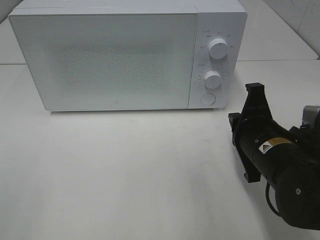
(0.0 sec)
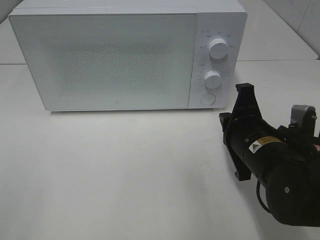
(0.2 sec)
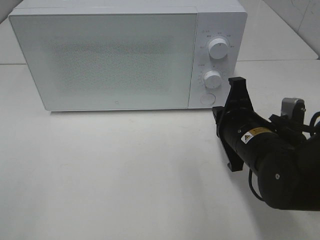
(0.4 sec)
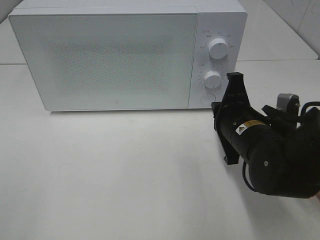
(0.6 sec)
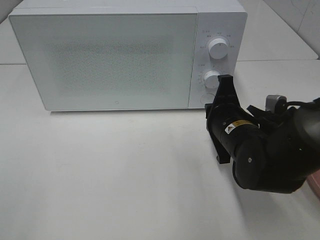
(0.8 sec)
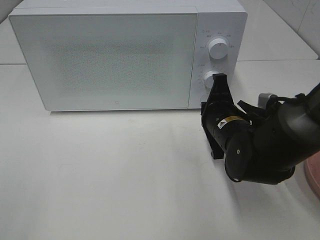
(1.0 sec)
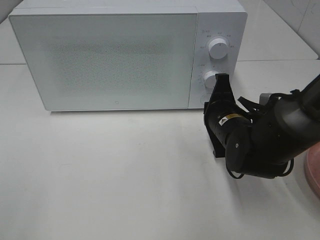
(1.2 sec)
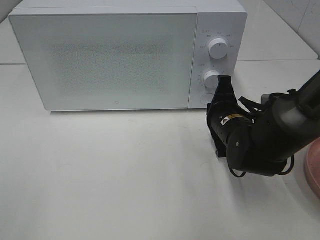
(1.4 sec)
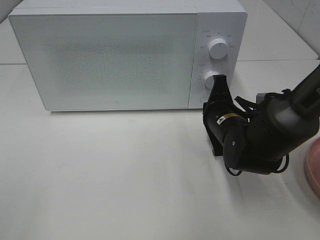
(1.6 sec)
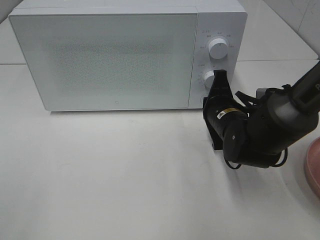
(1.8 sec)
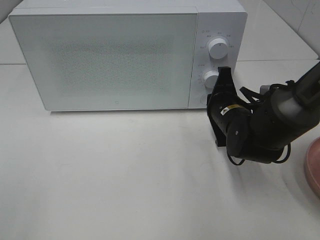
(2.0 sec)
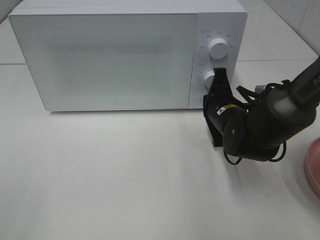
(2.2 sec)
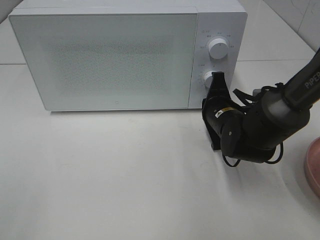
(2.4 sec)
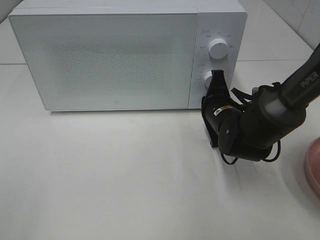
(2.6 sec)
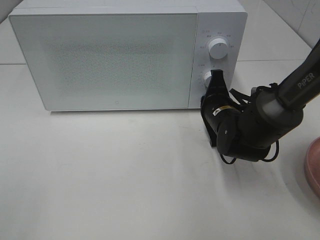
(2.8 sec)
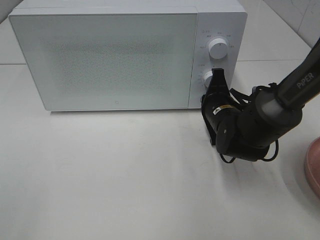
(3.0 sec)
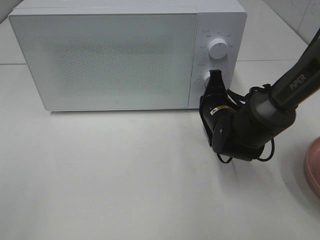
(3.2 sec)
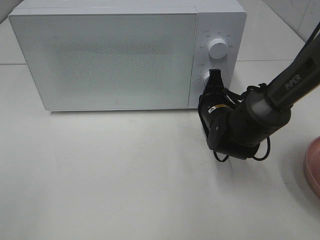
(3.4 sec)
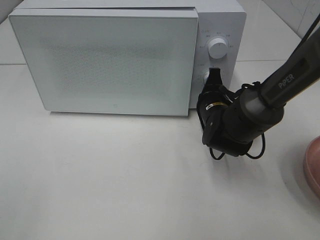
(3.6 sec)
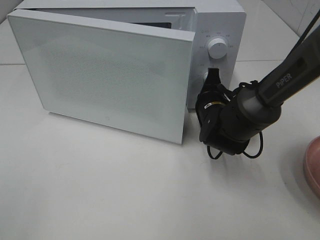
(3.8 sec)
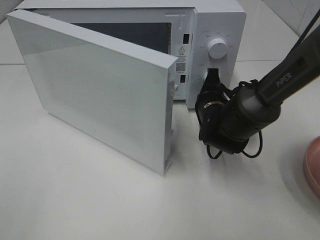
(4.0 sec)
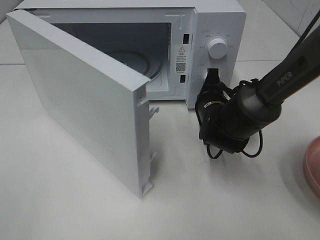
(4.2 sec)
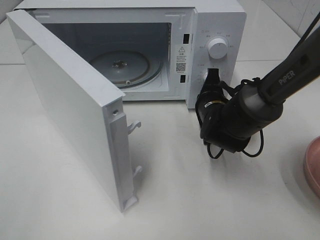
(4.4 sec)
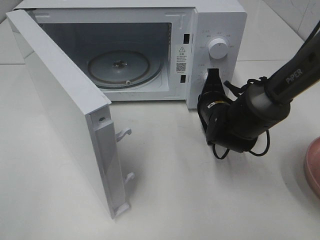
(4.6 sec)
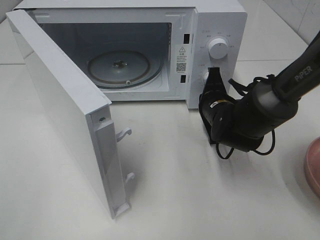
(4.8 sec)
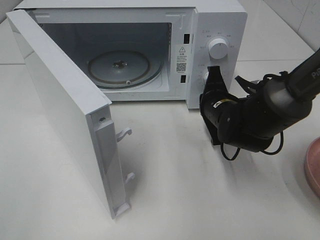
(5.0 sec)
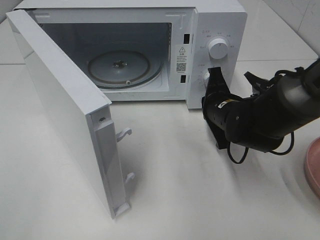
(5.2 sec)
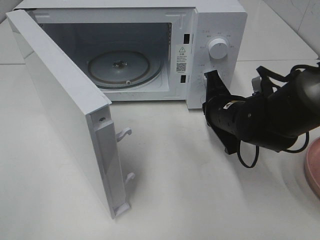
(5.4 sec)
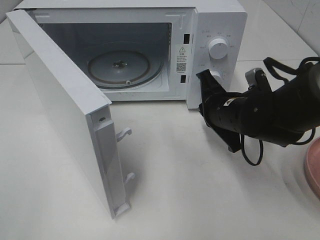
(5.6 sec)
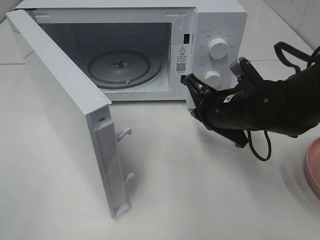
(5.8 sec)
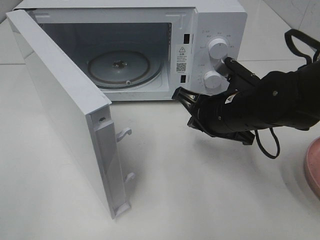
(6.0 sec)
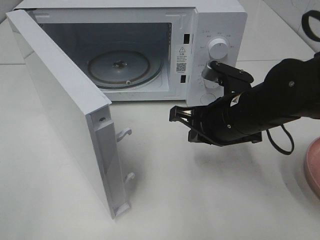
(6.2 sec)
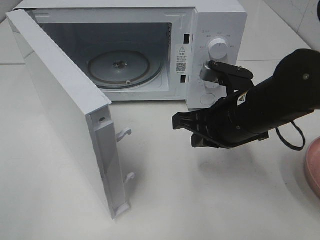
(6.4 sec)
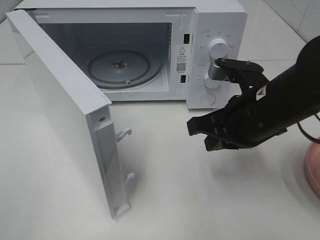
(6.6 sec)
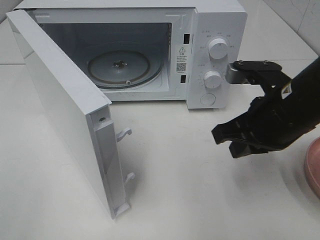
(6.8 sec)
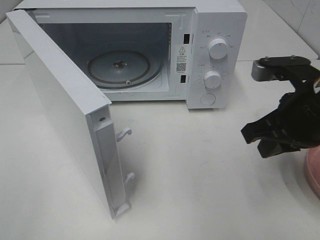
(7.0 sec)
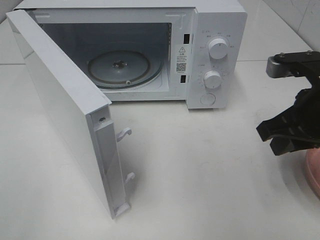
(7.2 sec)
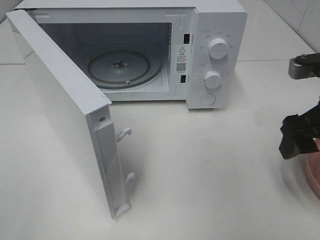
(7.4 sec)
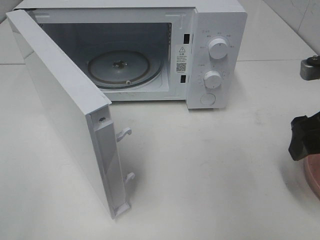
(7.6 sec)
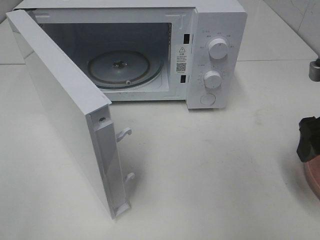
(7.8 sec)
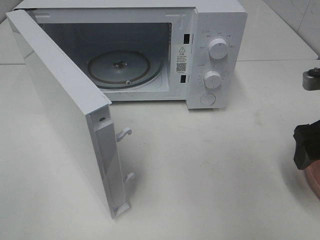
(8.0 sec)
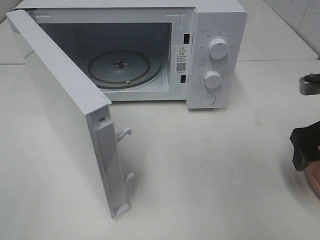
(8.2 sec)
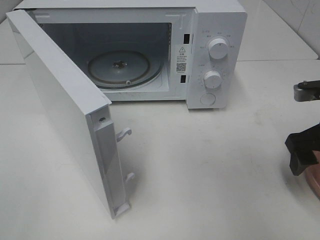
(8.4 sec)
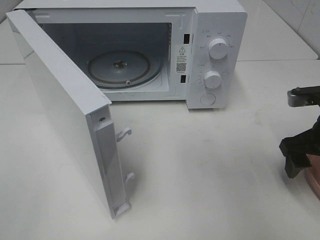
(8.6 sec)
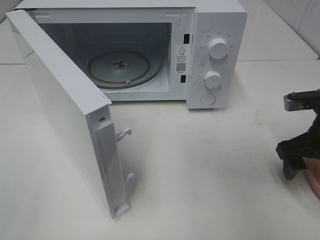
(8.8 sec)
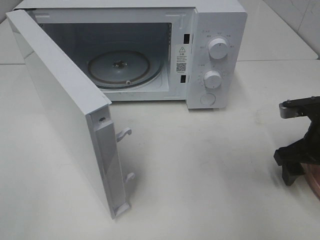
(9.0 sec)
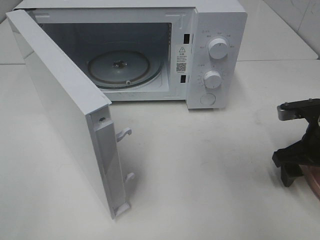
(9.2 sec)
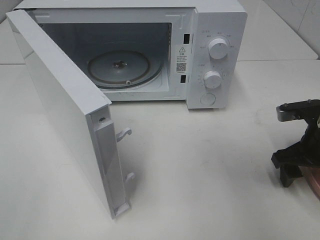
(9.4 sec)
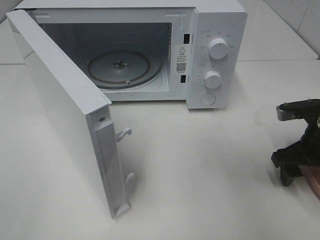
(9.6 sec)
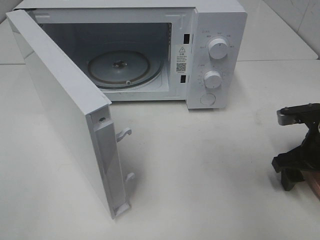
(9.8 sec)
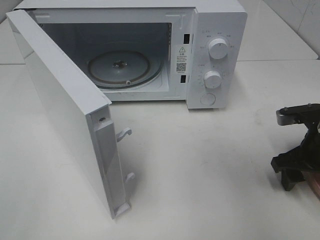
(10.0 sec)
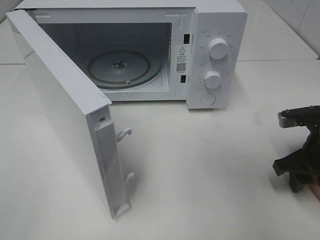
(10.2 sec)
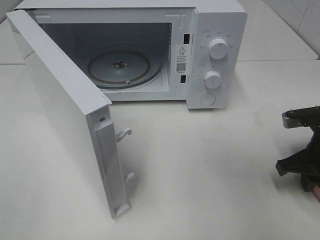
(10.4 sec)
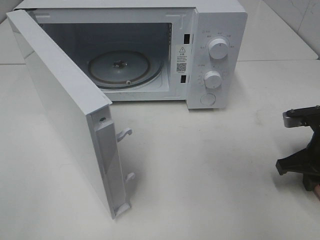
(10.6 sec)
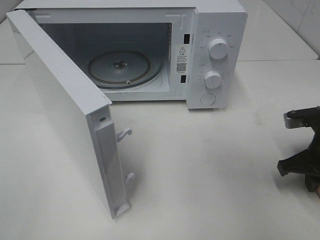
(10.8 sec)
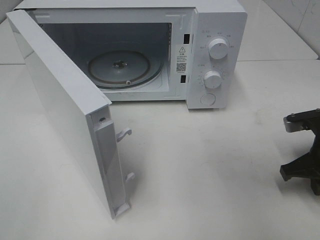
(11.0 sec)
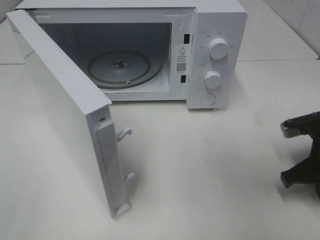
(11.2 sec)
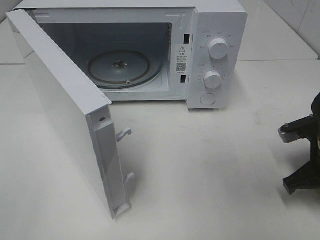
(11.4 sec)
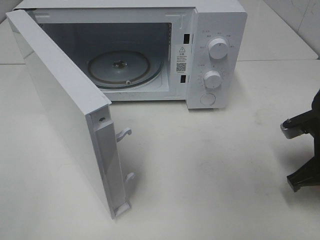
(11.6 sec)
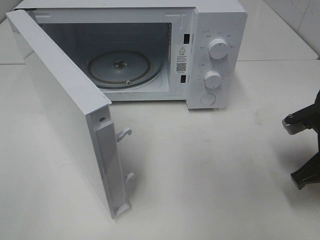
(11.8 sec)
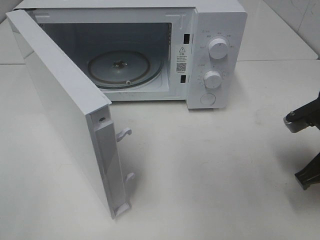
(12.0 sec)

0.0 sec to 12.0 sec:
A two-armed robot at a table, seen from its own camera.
Task of the whole recording: Heat the burger.
Step, 0.0 sec to 5.4 sec: Right hand: press the switch.
Step, 5.6 sec to 11.6 sec: Right hand: grab the plate with the hamburger.
0.0 sec to 1.6 sec: The right gripper heads forward, covering about 10 cm.
1.6 sec to 3.0 sec: The grippers stay close to where they were, moving slightly.
4.4 sec to 6.0 sec: The right gripper moves backward and upward, roughly 10 cm.
6.0 sec to 7.6 sec: The right gripper travels to the right and upward by some 15 cm, and opens its fingers.
7.6 sec to 9.0 sec: The right gripper moves downward, approximately 10 cm.
9.0 sec to 10.4 sec: The right gripper closes its fingers.
10.4 sec to 12.0 sec: The right gripper changes place by some 5 cm.

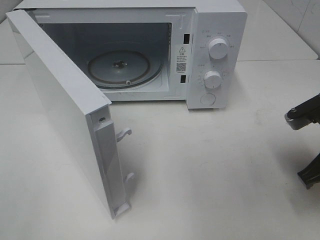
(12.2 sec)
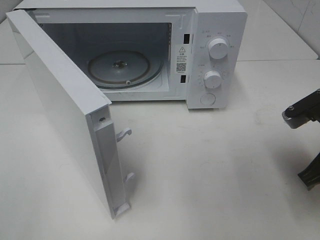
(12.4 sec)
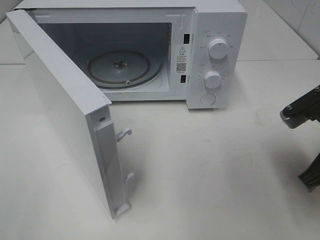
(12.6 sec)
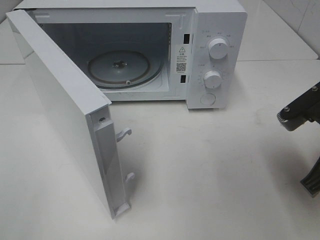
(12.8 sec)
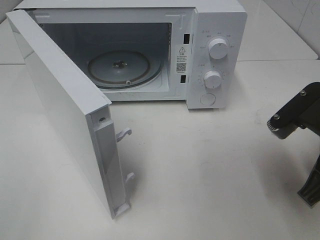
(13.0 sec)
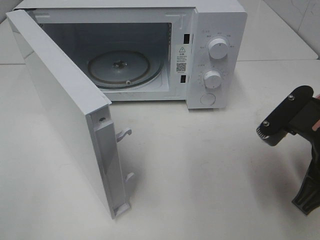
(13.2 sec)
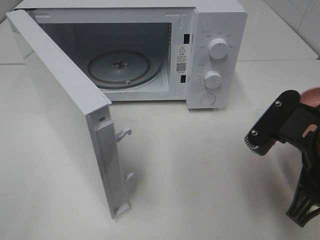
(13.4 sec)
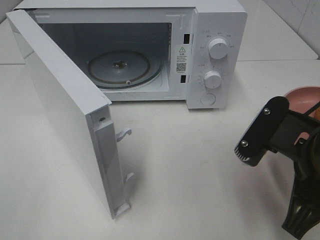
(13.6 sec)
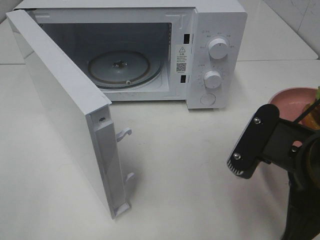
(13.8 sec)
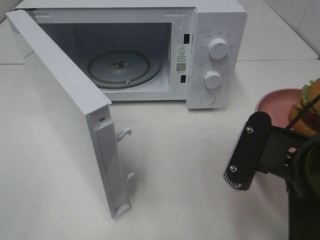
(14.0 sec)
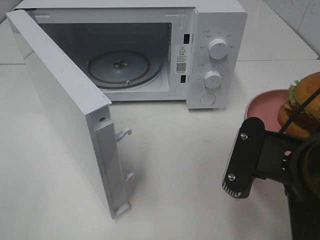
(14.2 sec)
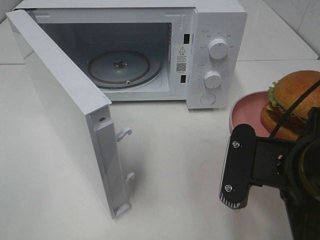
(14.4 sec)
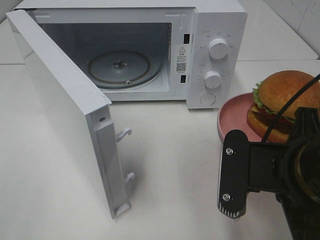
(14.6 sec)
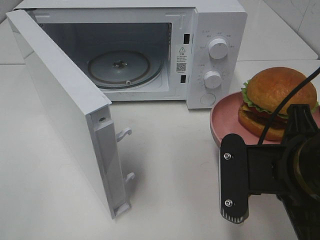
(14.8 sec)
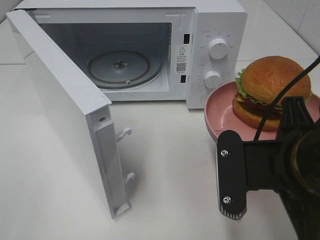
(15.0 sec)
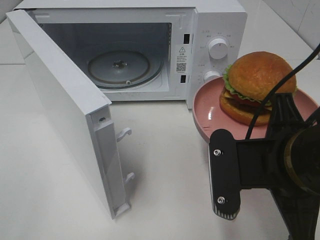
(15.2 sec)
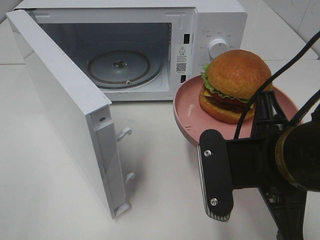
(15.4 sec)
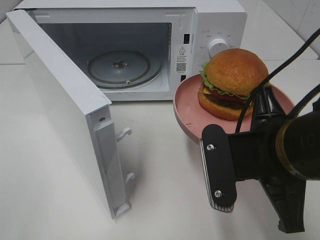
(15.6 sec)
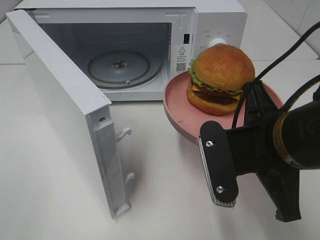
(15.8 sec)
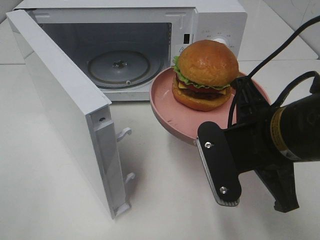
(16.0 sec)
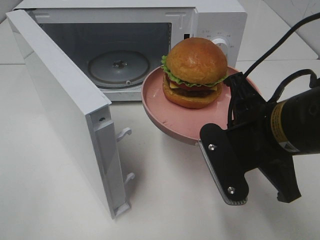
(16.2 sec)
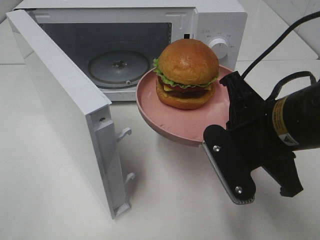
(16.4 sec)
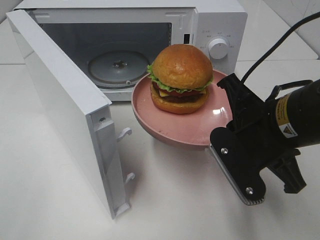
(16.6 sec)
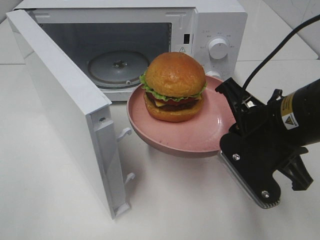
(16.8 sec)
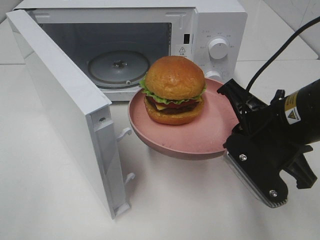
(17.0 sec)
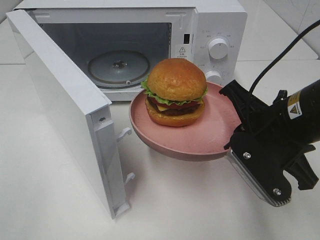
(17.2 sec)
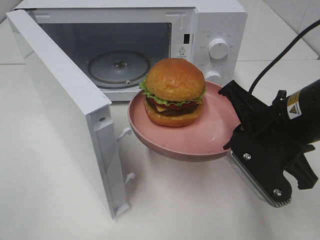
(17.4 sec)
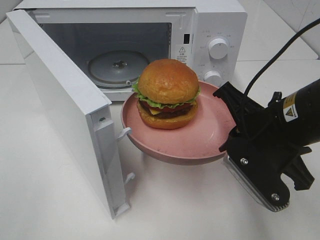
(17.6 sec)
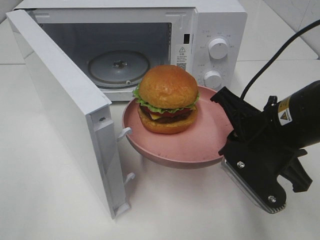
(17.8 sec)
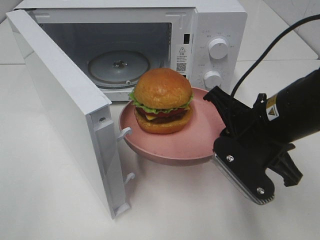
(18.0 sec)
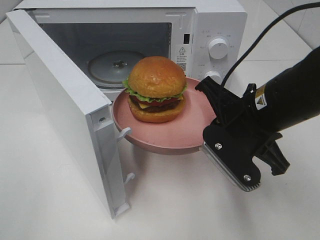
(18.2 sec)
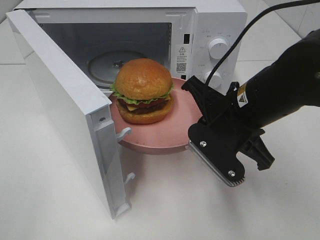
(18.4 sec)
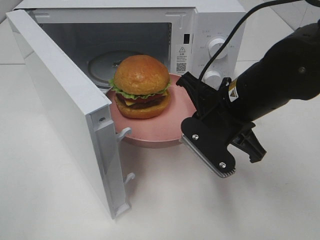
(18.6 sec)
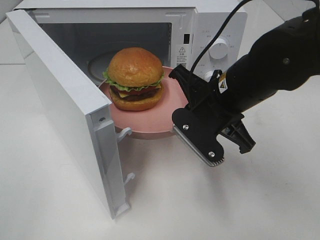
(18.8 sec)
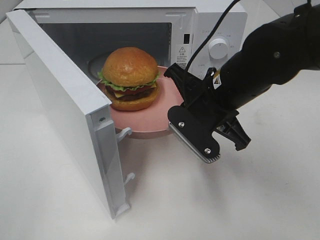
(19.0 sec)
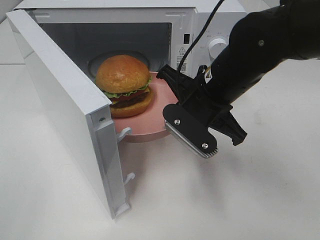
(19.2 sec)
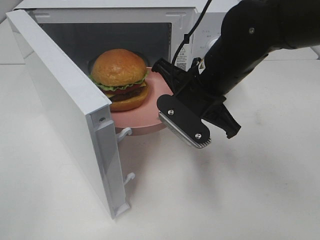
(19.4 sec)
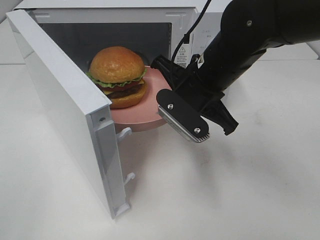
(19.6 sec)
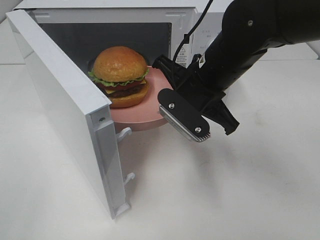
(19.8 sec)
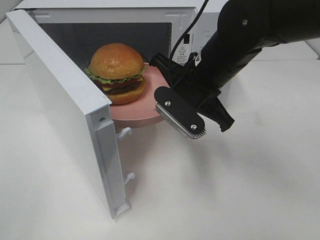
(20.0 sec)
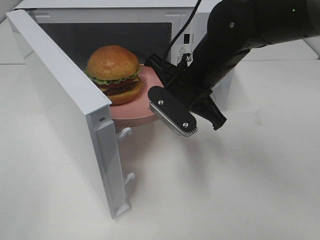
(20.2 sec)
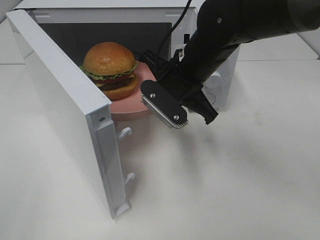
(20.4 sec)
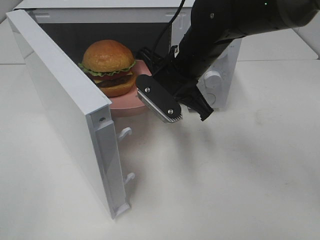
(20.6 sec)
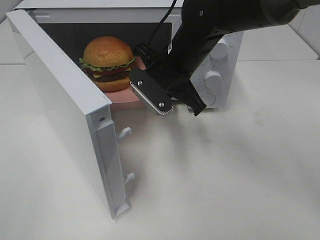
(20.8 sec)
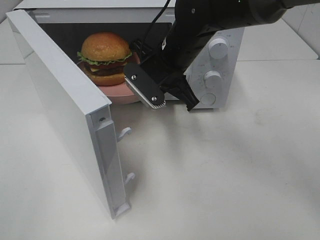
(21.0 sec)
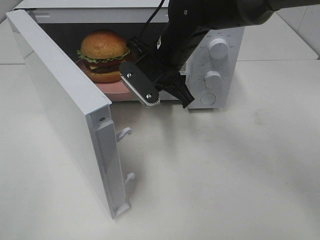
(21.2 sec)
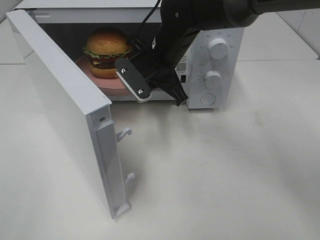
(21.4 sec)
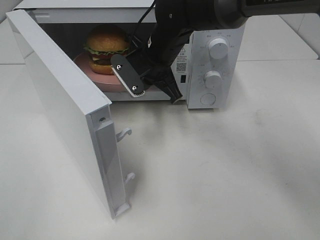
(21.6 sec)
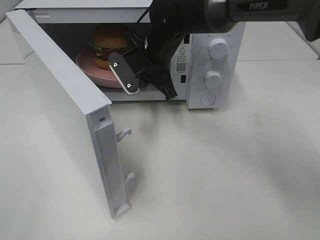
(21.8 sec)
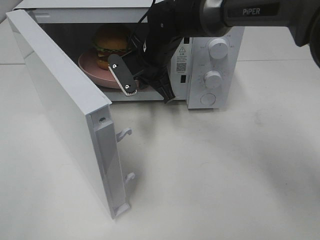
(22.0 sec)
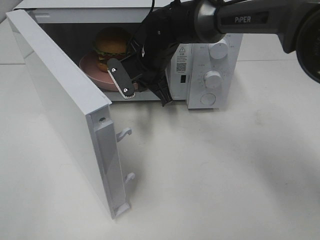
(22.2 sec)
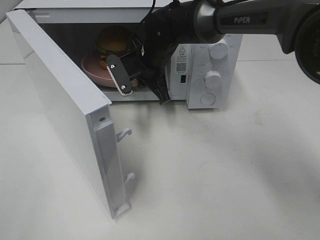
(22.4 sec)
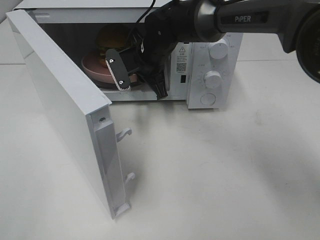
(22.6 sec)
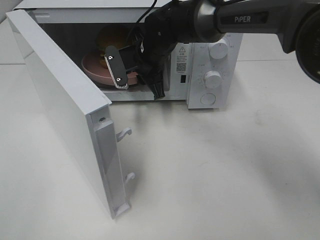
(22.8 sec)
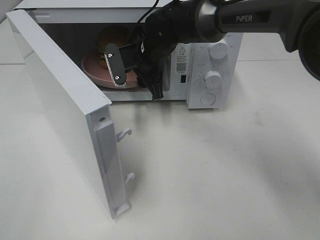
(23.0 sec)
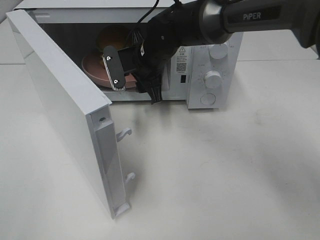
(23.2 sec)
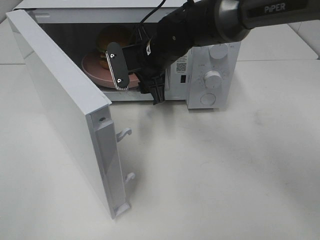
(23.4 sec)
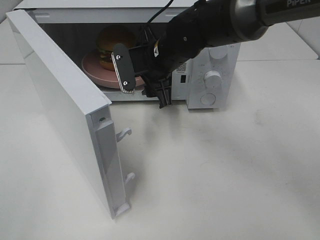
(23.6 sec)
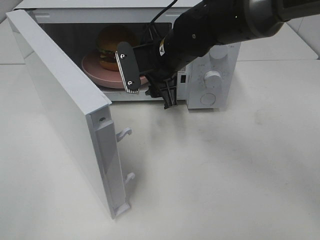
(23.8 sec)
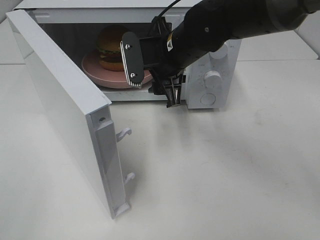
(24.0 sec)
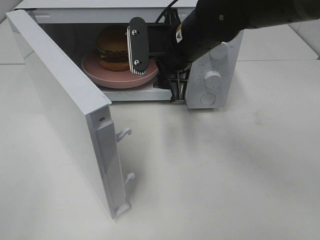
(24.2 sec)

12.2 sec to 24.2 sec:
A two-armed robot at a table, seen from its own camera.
Task of the whole recording: Heat the burger.
Step, 12.2 sec to 23.4 sec: Right hand: place the plate in the microwave.
12.2 sec to 13.8 sec: The right gripper goes approximately 10 cm to the left and backward.
15.2 sec to 16.6 sec: The right gripper shifts about 5 cm forward.
18.2 sec to 19.8 sec: The right gripper goes approximately 10 cm forward and to the left.
19.8 sec to 21.2 sec: The right gripper heads forward and to the left, covering about 10 cm.
21.2 sec to 22.6 sec: The right gripper shifts some 5 cm forward.
22.6 sec to 24.2 sec: The right gripper shifts approximately 10 cm backward, upward and to the right, and opens.
